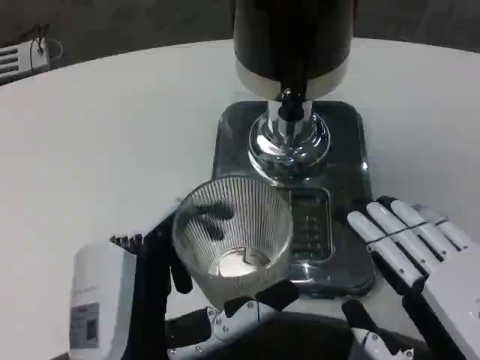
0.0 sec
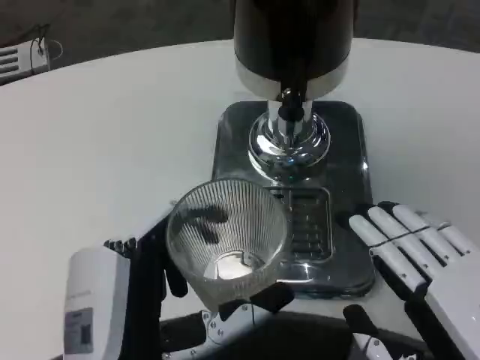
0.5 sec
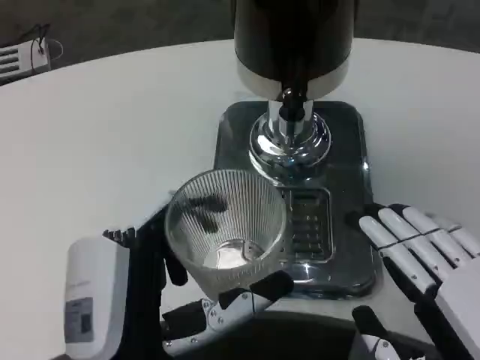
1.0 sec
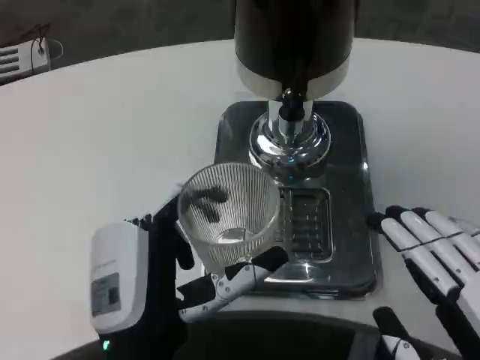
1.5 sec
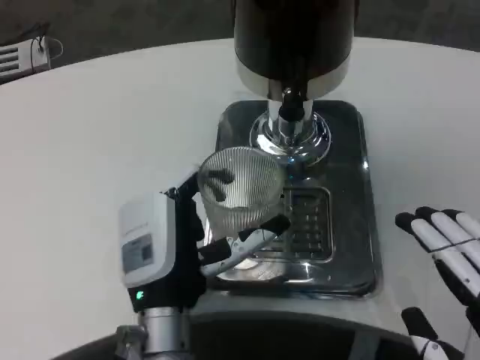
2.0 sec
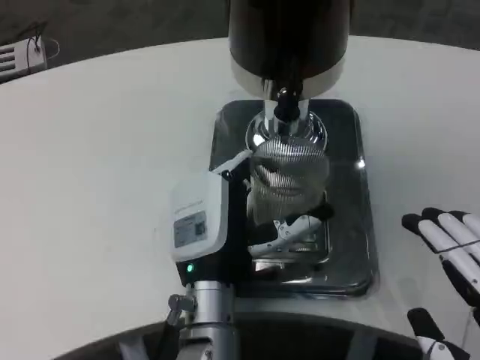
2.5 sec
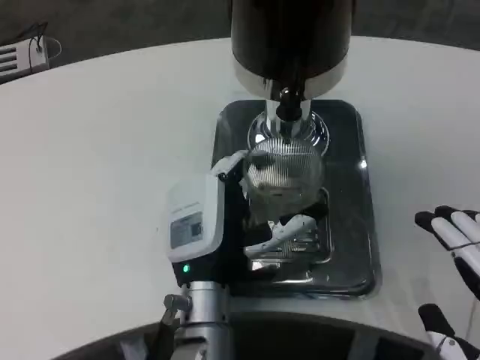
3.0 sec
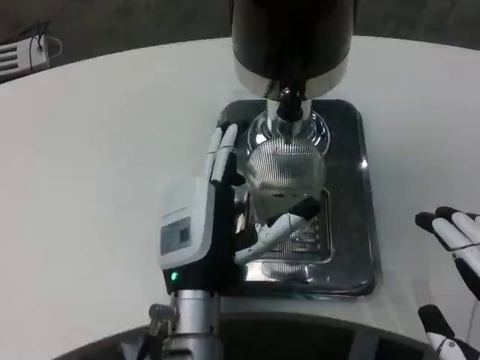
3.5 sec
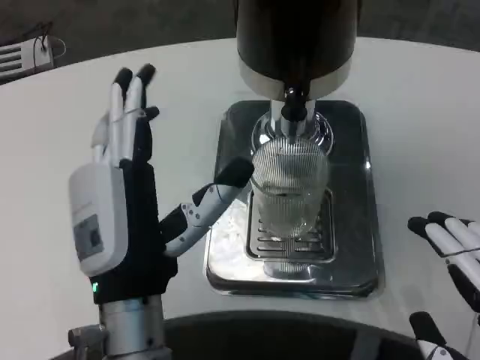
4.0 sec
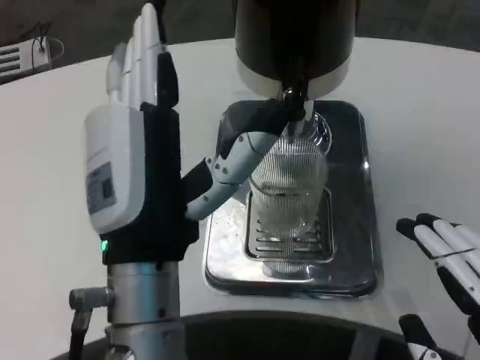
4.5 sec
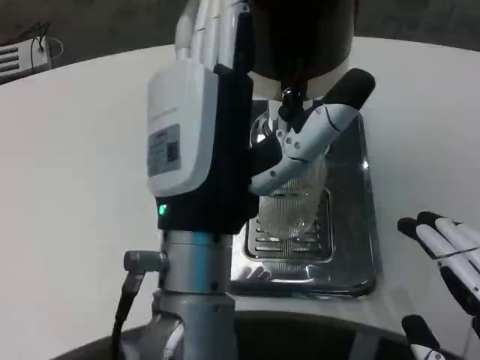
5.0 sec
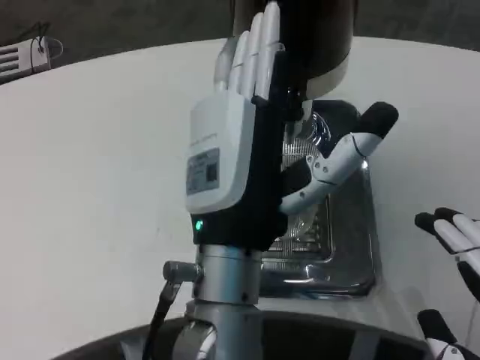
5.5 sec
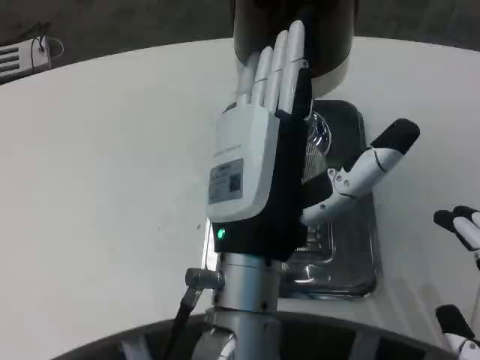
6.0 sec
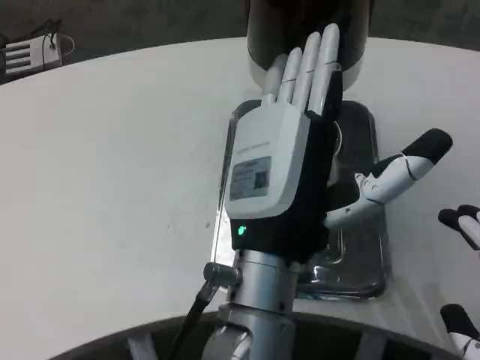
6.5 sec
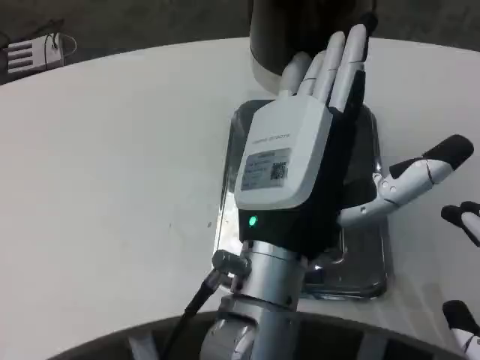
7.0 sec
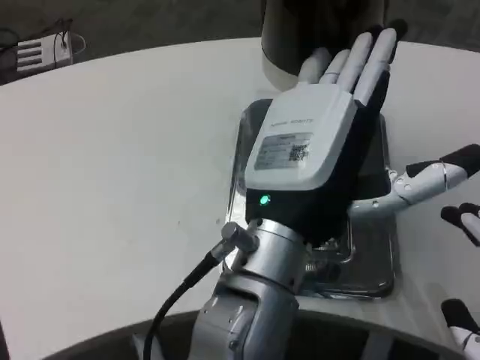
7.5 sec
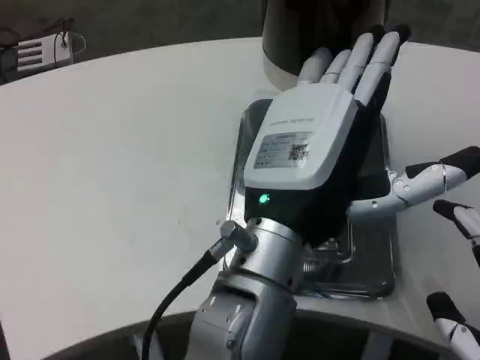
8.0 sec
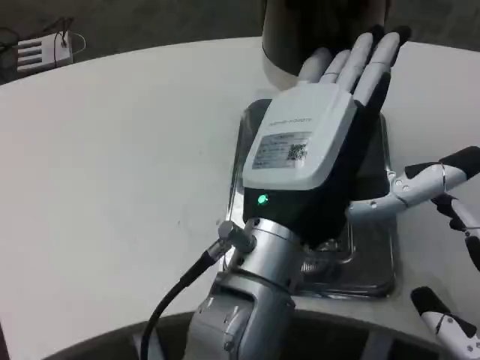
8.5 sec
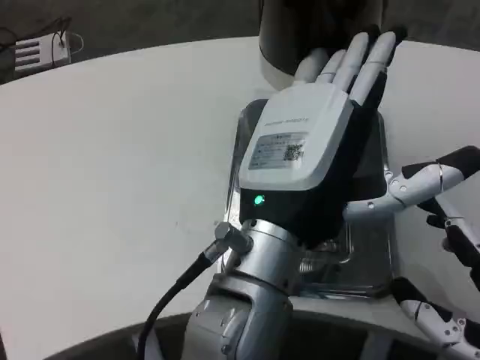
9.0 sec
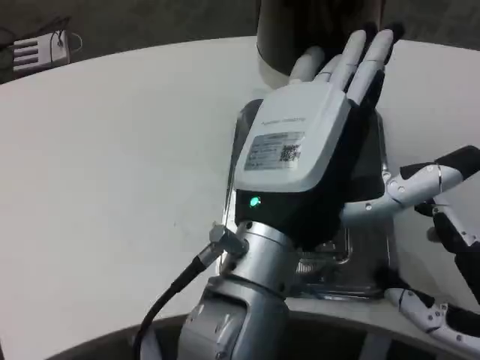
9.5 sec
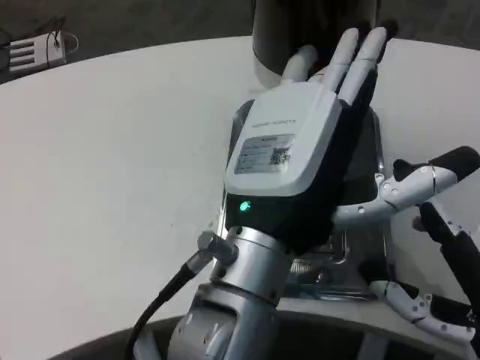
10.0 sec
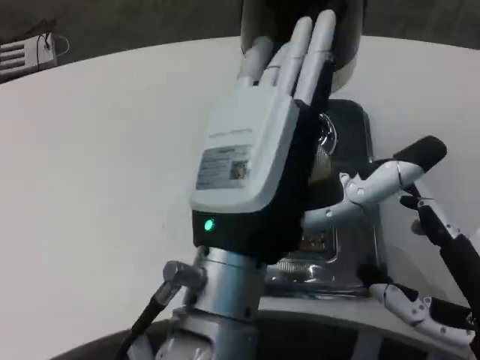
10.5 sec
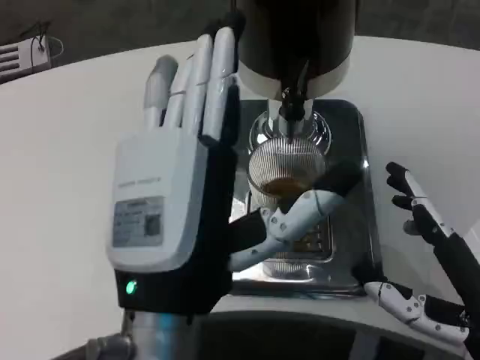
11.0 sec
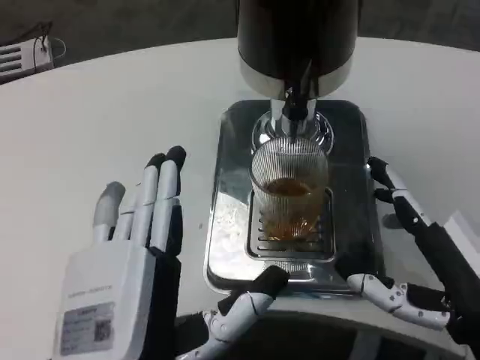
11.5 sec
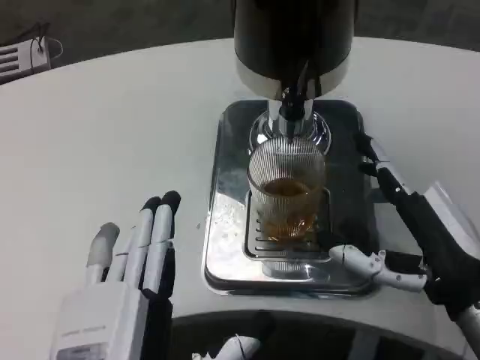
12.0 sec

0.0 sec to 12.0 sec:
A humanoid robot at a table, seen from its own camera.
Task of the whole recording: Grasp the cup under the faucet to collect the drink, then remove the cup.
0.0 sec to 2.0 sec: The left hand is displaced forward by approximately 10 cm.
2.0 sec to 4.0 sec: The left hand goes approximately 5 cm upward.
4.0 sec to 6.0 sec: The left hand shifts about 10 cm to the right.
8.0 sec to 10.0 sec: The right hand travels forward by about 5 cm.
10.0 sec to 12.0 sec: The right hand travels forward by about 5 cm. Meanwhile the left hand is displaced downward, backward and to the left by approximately 15 cm.

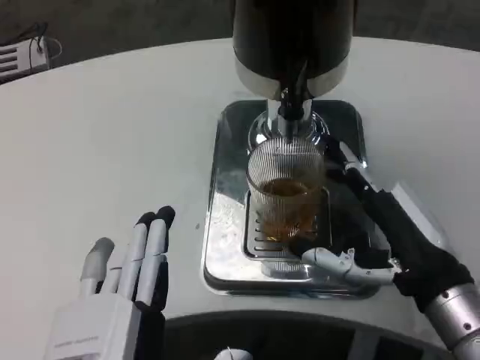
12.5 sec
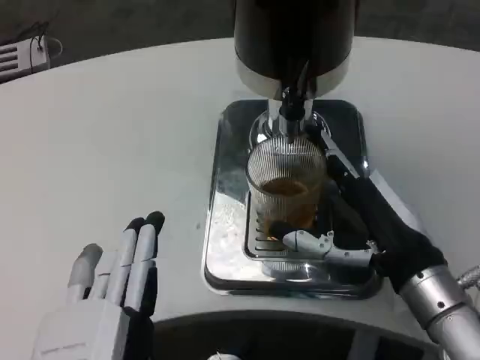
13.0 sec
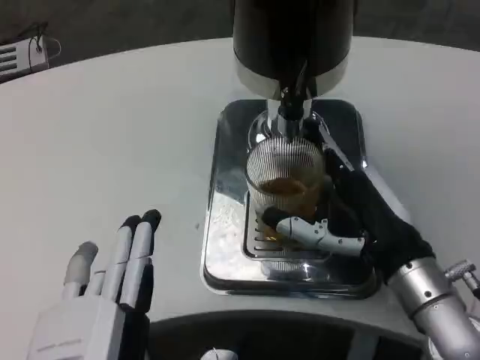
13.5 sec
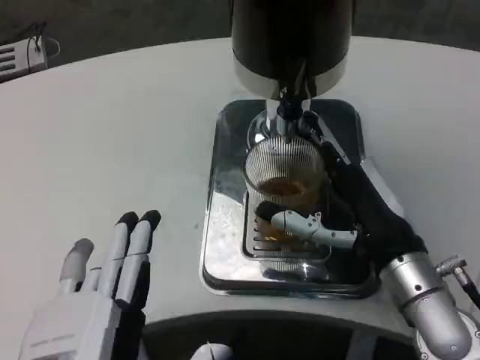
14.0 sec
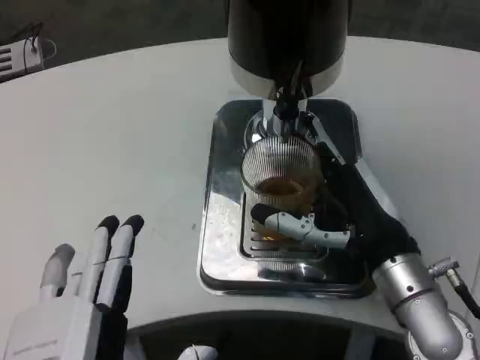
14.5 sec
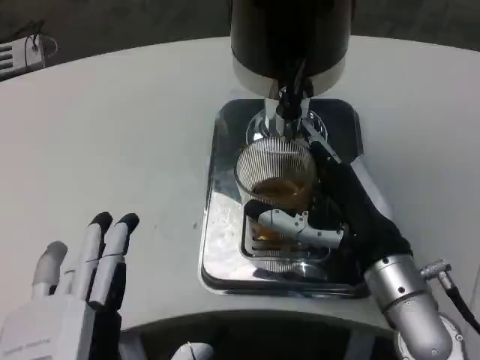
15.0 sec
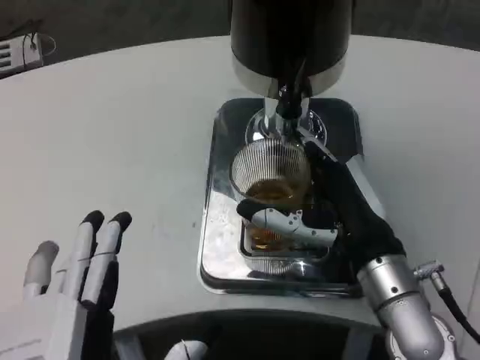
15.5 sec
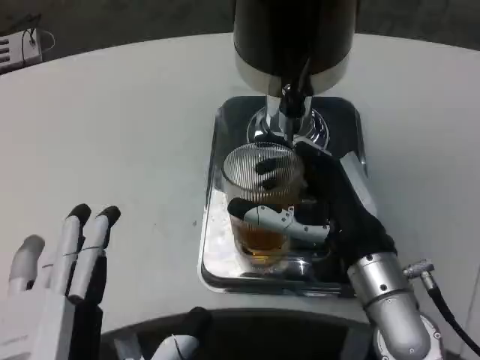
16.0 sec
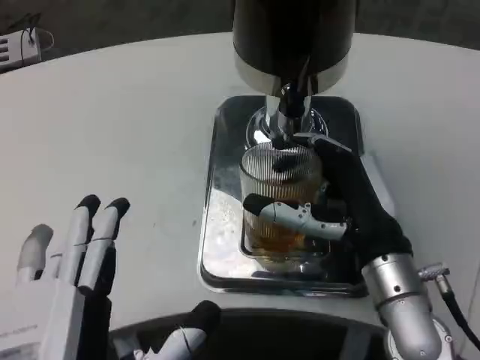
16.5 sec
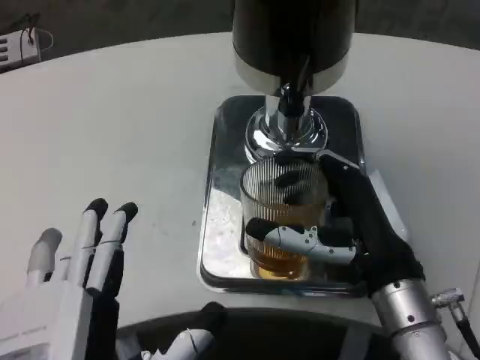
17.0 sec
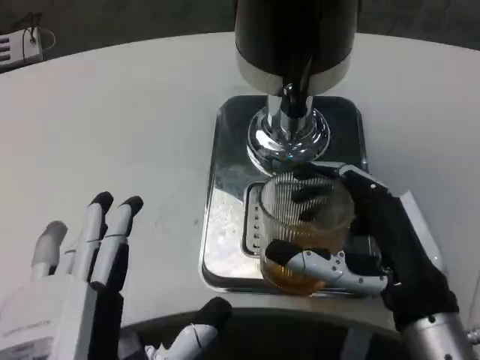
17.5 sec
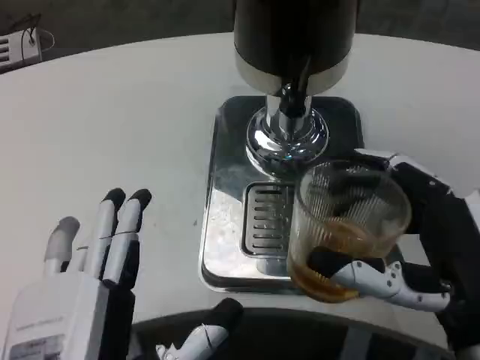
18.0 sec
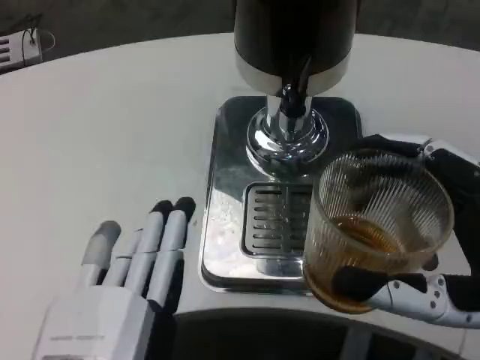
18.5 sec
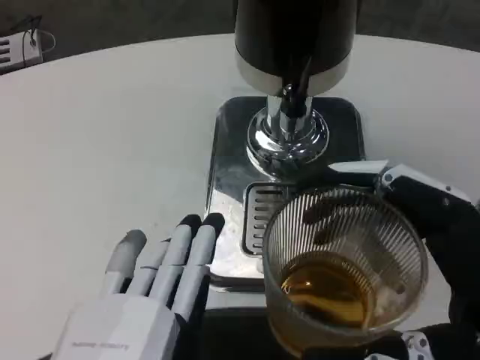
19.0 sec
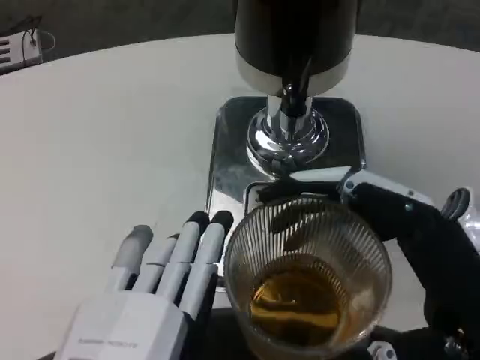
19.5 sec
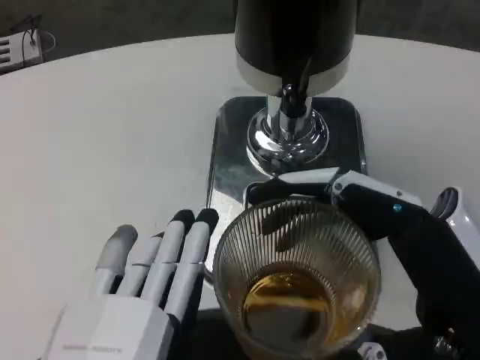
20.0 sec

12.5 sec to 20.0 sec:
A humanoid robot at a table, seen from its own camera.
Task of the whole recording: Grasp the cup under the faucet to collect the drink, then remove the cup.
12.5 sec to 14.5 sec: The right hand moves roughly 5 cm.
16.5 sec to 18.0 sec: The right hand travels backward by roughly 10 cm.
18.0 sec to 20.0 sec: The right hand changes place by about 5 cm.

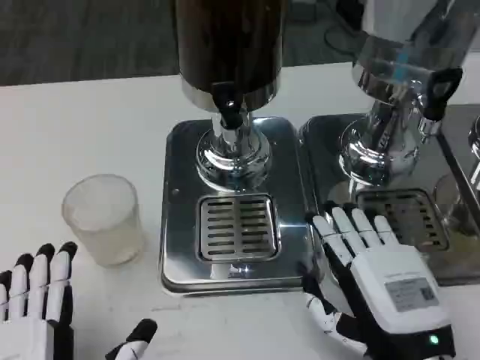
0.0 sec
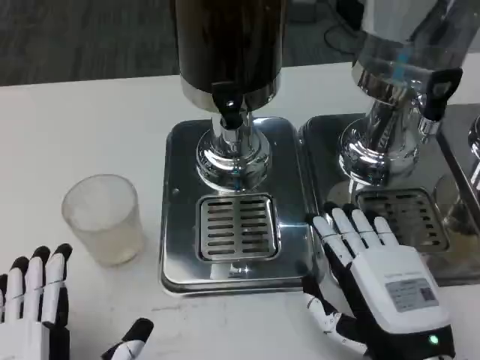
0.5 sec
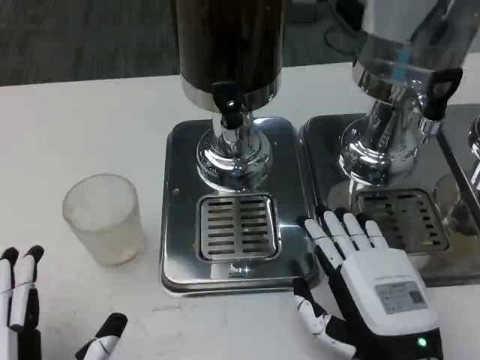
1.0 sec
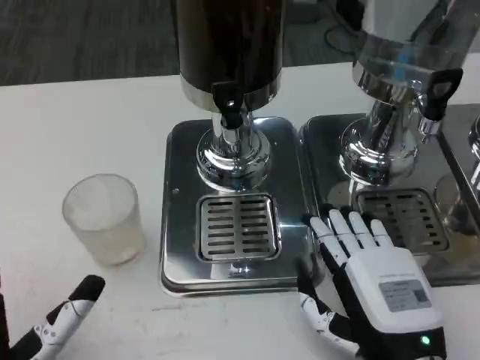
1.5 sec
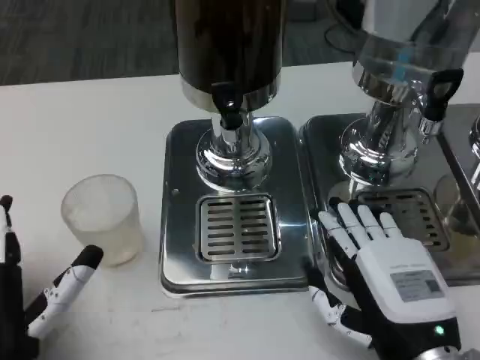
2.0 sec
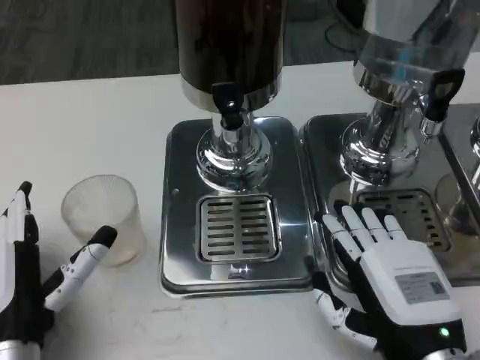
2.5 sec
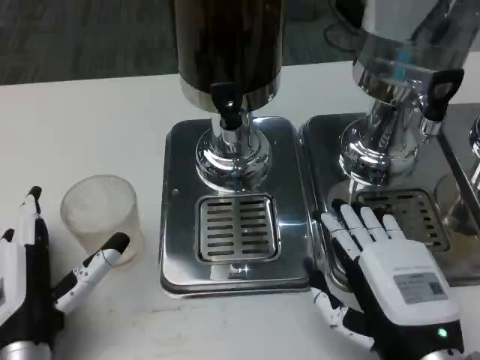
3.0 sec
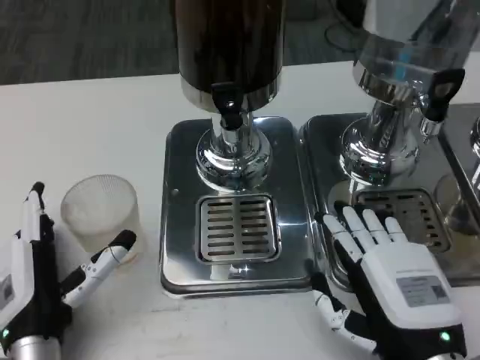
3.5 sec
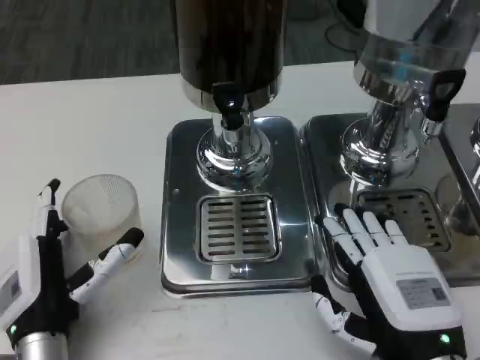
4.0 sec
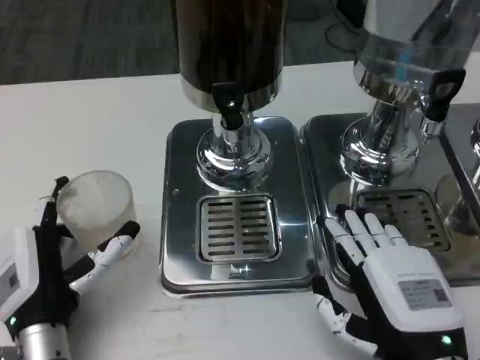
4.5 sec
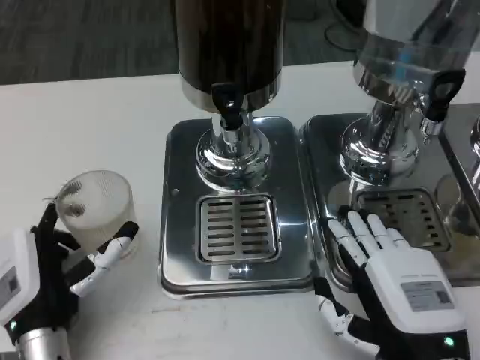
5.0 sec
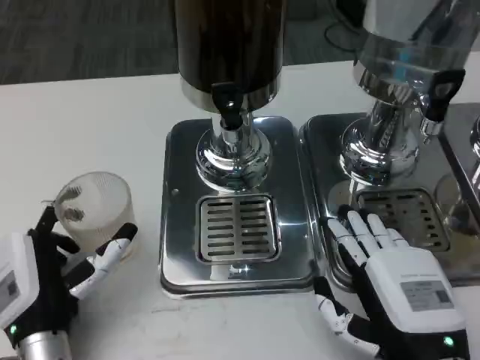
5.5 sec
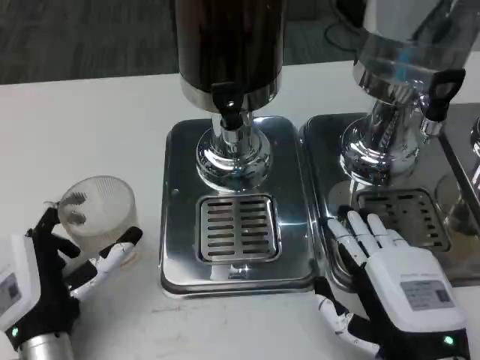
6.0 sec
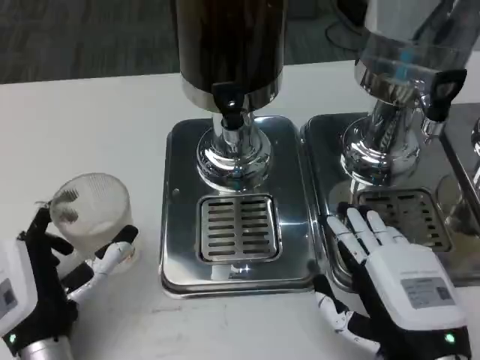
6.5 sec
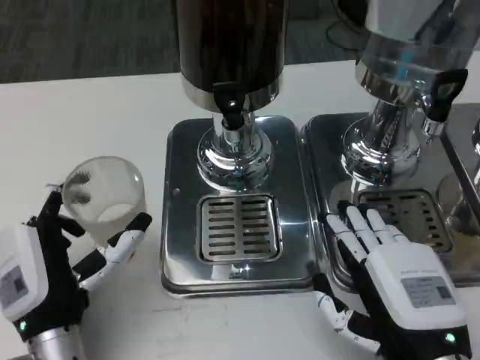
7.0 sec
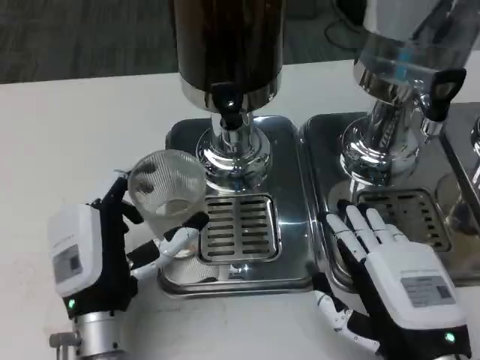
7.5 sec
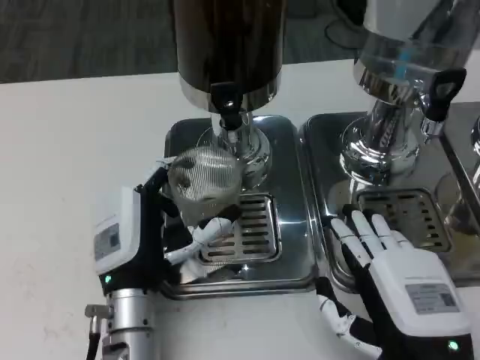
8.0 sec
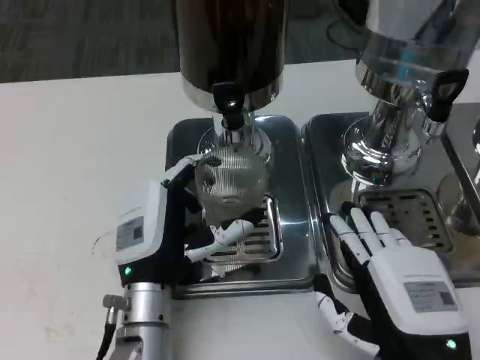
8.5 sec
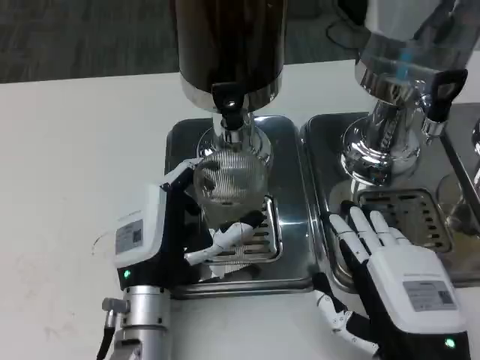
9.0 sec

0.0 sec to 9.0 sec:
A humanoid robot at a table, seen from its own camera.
Task of the whole recording: Grasp the cup under the faucet to collect the drink, then remove the cup.
0.0 sec to 2.0 sec: The left hand moves forward, roughly 5 cm.
2.0 sec to 4.5 sec: The left hand shifts about 5 cm forward.
4.5 sec to 7.0 sec: The hands stay close to where they were, moving slightly.
7.0 sec to 9.0 sec: The left hand goes some 5 cm to the right.
